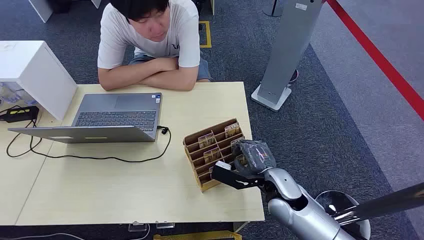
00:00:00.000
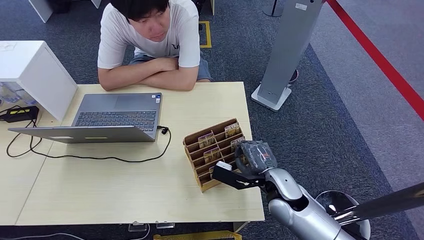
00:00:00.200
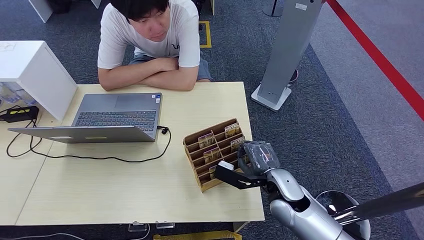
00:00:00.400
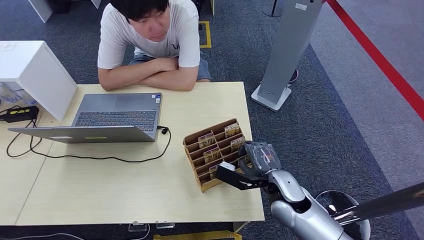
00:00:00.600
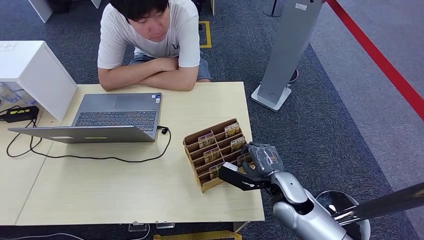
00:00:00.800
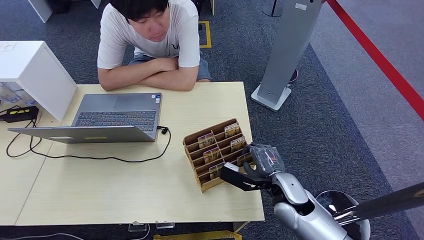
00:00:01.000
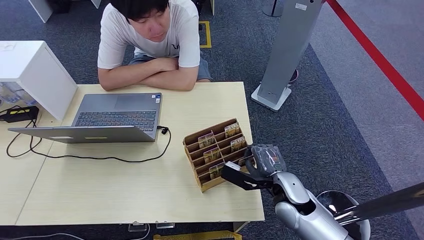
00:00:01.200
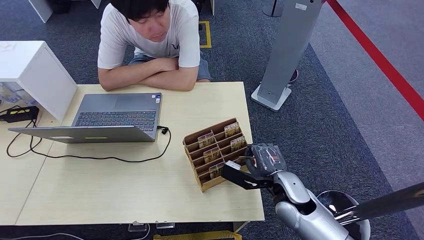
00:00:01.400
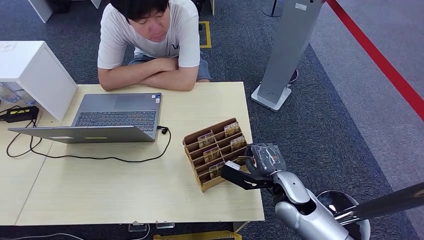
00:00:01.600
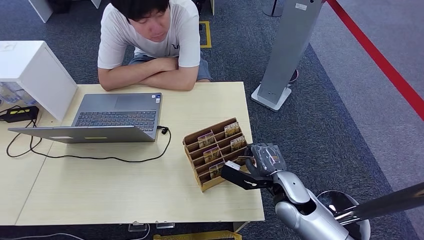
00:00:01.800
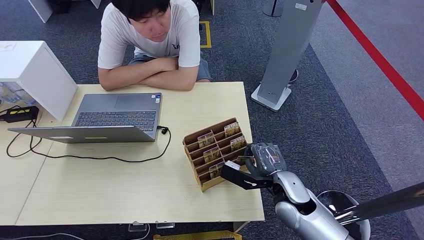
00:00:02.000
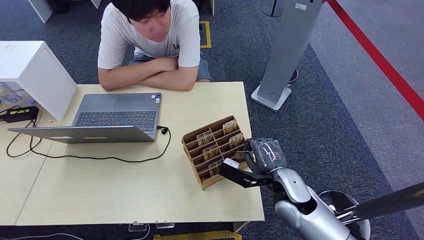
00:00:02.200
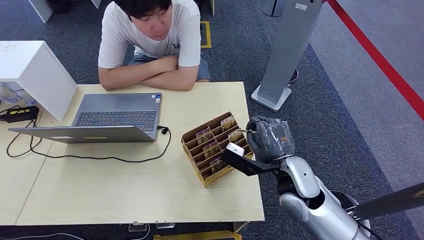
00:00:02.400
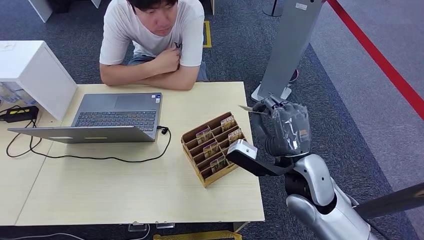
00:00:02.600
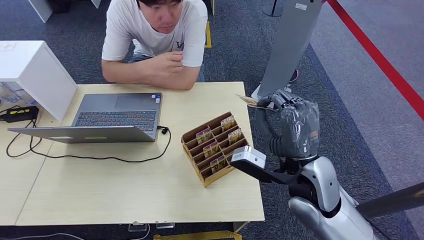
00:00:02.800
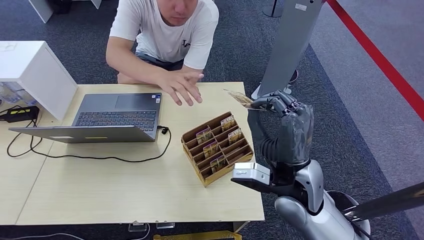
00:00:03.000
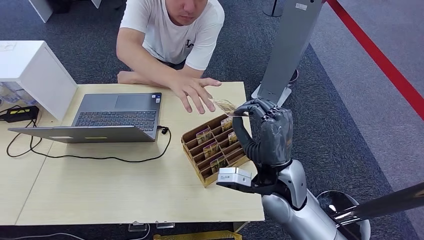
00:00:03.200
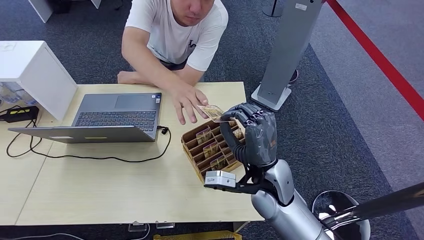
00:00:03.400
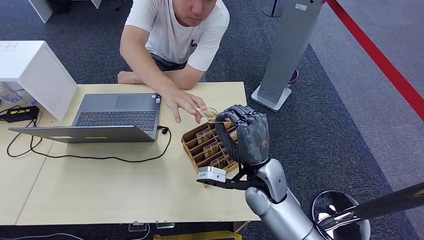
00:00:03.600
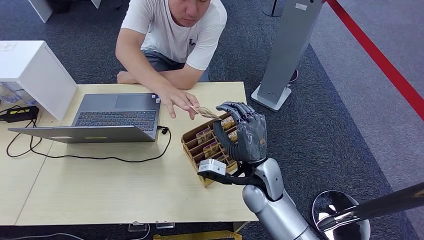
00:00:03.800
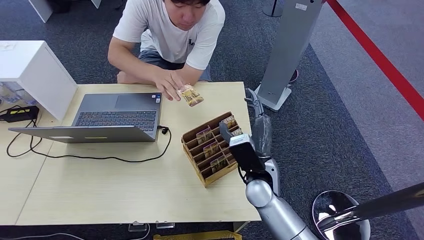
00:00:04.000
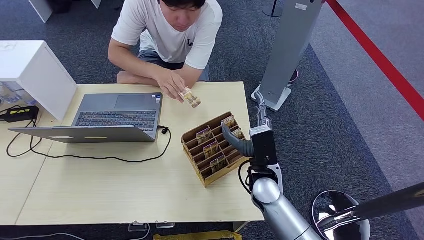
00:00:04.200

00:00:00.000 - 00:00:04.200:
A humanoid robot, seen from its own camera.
Step, 00:00:00.000 - 00:00:02.800: Pick up the key card from the card box.
Step, 00:00:03.200 - 00:00:04.200: Hand the key card to the target.
00:00:01.400 - 00:00:02.800: The right hand travels upward by roughly 15 cm.
00:00:02.800 - 00:00:04.200: The right hand shifts roughly 15 cm downward, forward and to the left.
